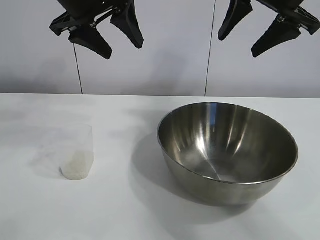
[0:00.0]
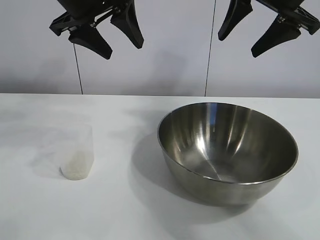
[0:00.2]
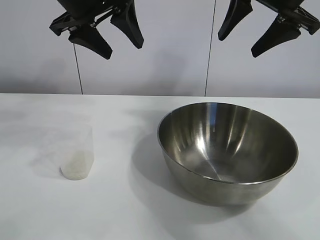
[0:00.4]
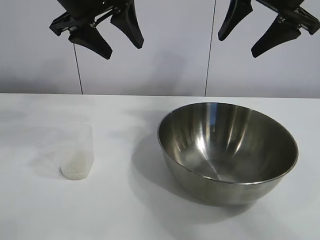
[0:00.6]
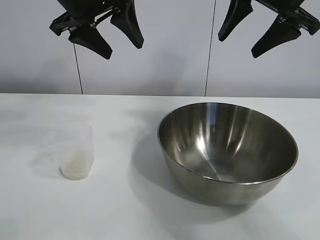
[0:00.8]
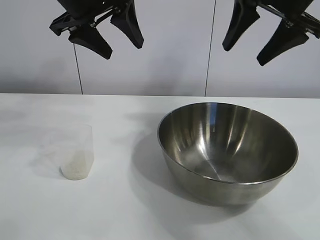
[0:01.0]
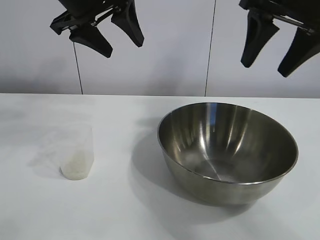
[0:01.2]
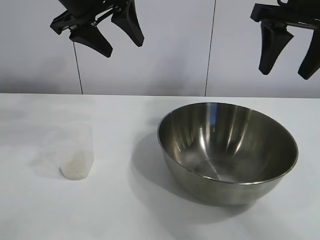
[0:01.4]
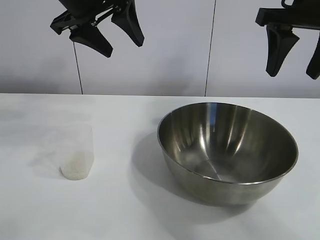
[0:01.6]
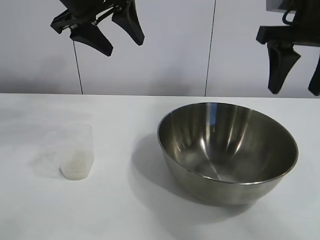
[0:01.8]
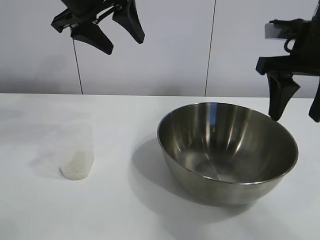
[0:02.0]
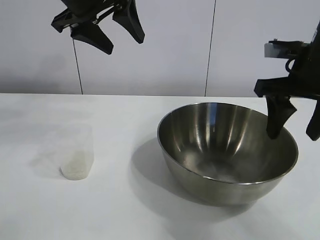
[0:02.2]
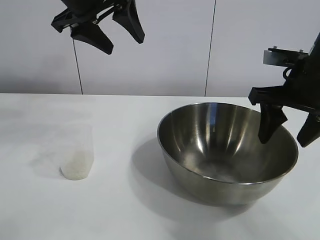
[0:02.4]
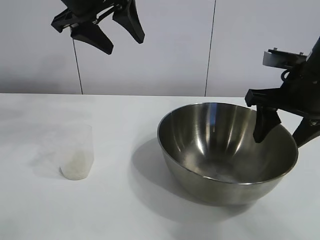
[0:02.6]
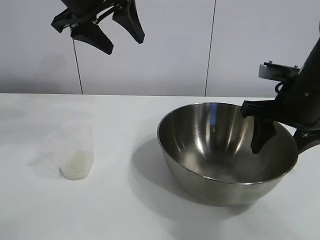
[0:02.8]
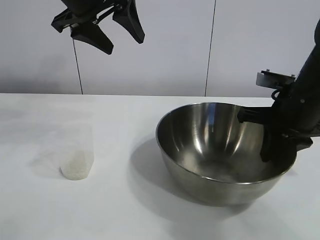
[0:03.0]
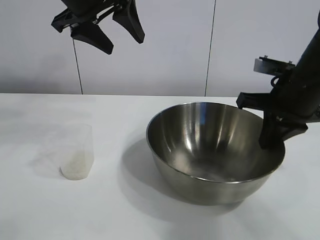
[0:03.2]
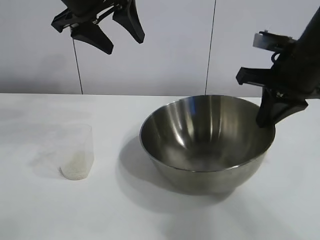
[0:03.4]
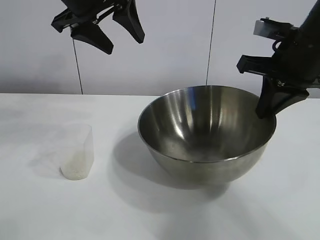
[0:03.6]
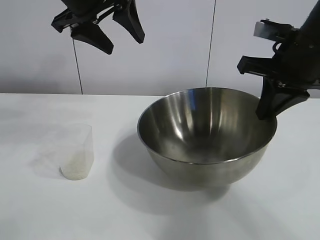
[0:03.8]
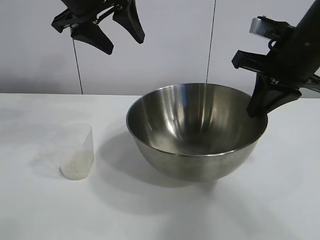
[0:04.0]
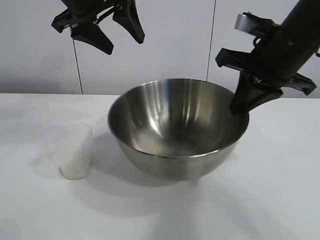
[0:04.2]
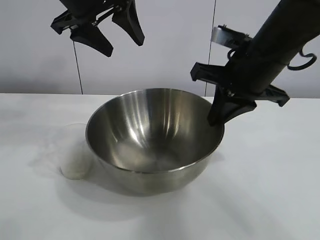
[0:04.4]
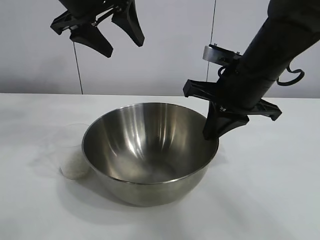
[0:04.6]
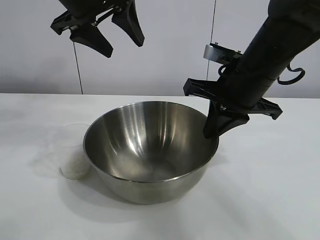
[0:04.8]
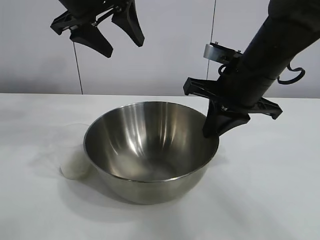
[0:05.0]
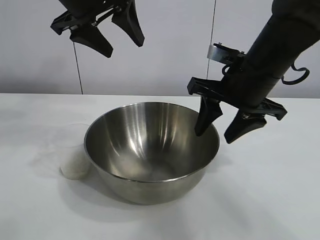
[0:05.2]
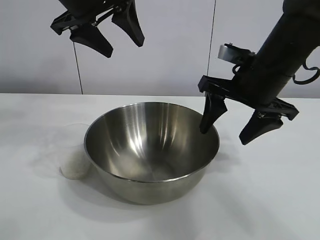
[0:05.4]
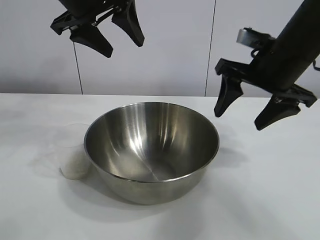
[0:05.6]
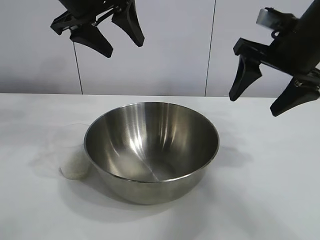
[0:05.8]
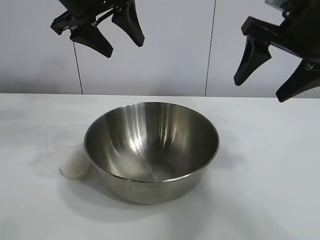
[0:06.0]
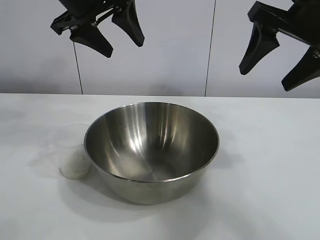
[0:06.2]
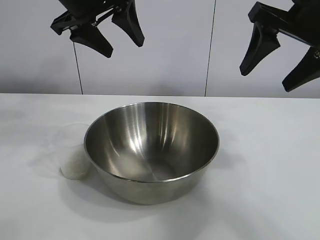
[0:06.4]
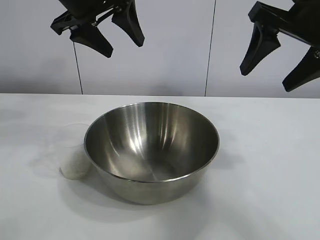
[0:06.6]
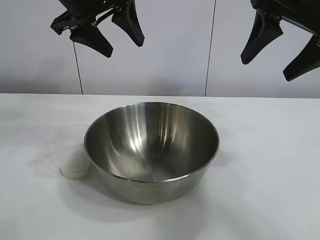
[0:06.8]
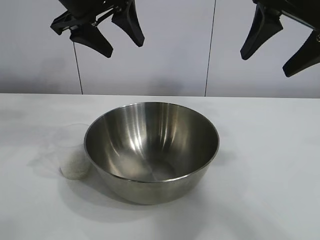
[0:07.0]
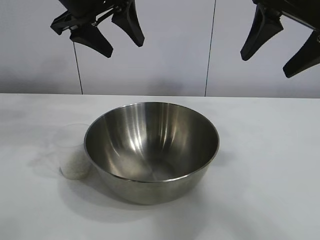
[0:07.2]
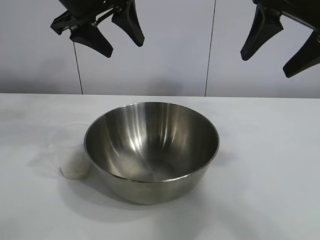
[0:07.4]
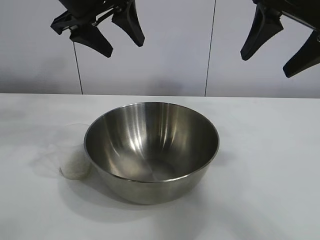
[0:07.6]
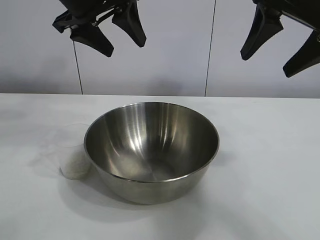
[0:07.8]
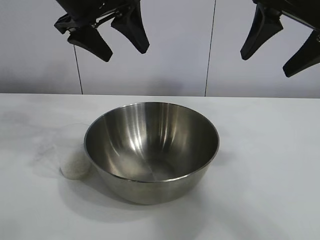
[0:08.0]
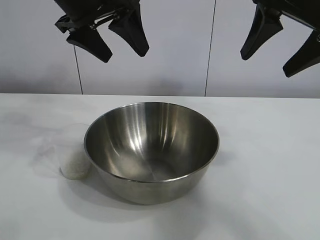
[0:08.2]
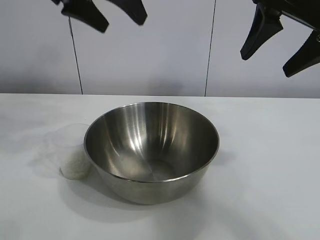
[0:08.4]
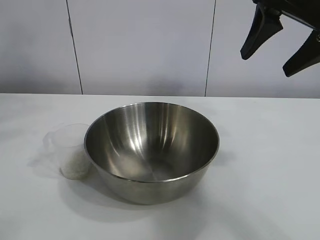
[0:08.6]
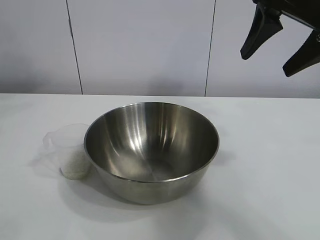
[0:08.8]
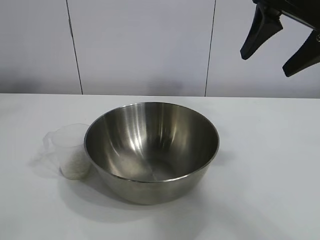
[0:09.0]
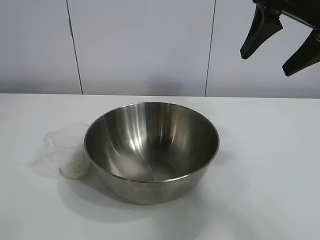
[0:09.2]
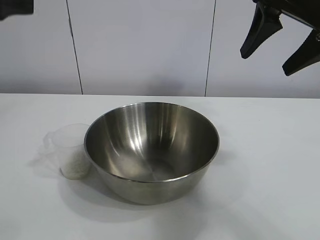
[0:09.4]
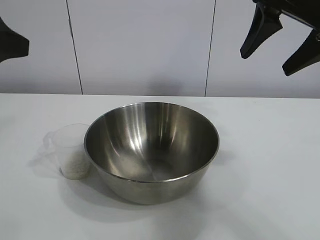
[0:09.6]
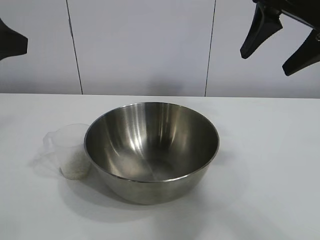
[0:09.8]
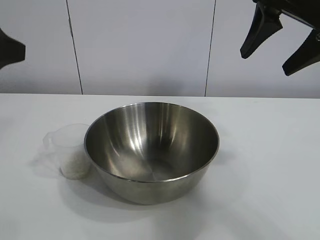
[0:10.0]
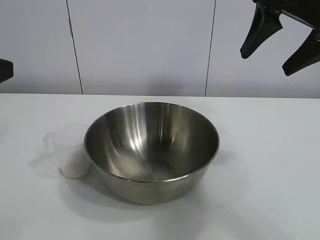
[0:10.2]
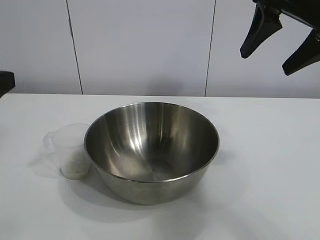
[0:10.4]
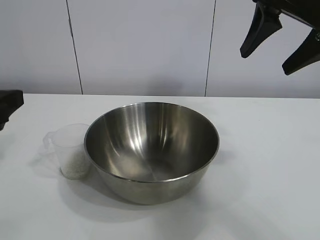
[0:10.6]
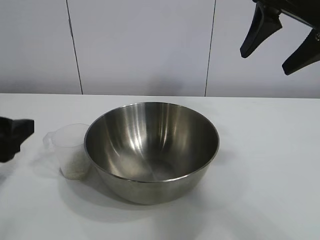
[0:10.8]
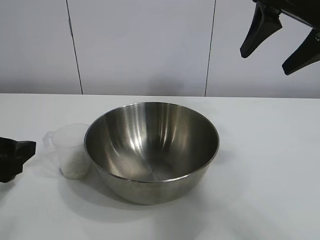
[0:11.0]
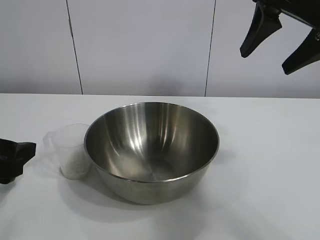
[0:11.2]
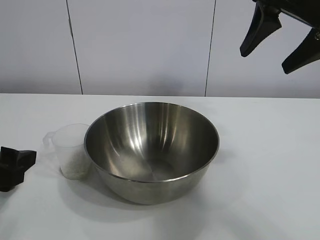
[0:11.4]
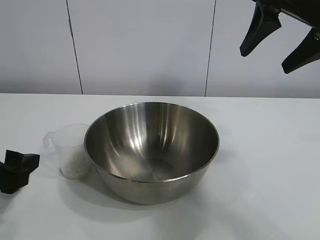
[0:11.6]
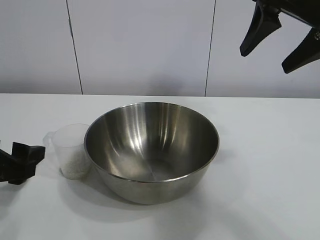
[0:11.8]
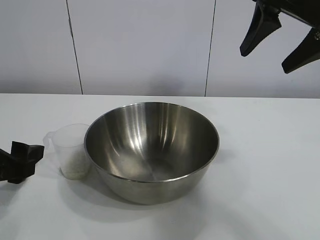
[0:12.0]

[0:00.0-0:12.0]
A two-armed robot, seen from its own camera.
Task of the whole recording: the right gripper grasp the rice container and place it in the center of the table, the left gripper grasp the rice scoop and pour the rice into the rice container.
Step, 0:01.0 to 0:05.0: Move the bowl in the center of view with right gripper.

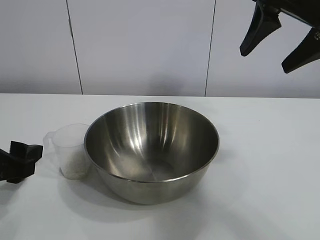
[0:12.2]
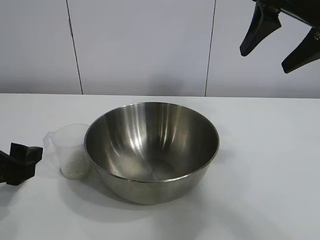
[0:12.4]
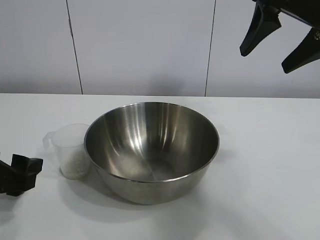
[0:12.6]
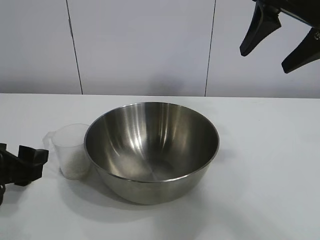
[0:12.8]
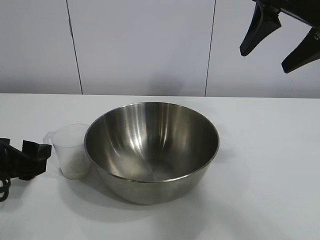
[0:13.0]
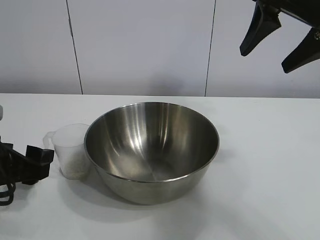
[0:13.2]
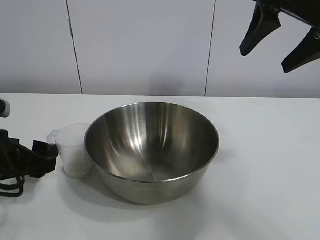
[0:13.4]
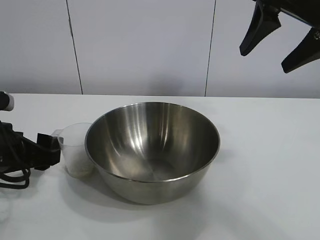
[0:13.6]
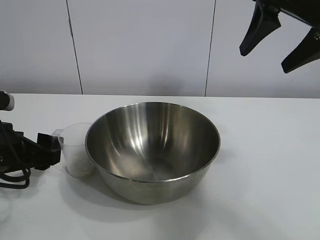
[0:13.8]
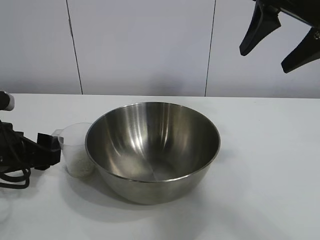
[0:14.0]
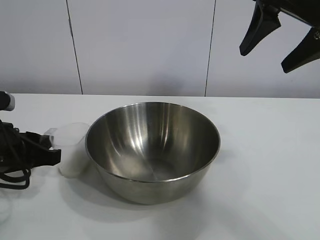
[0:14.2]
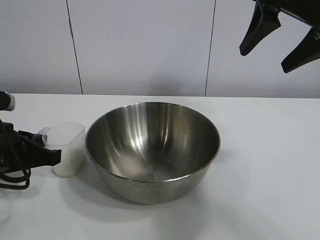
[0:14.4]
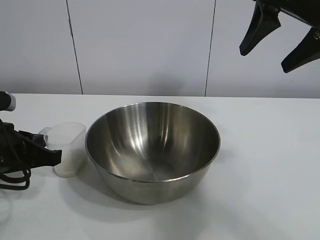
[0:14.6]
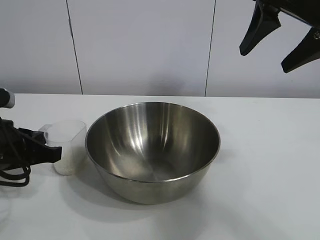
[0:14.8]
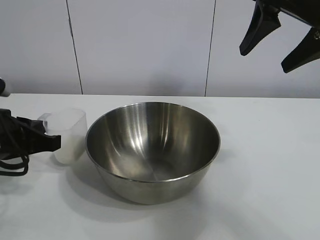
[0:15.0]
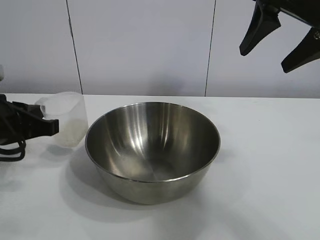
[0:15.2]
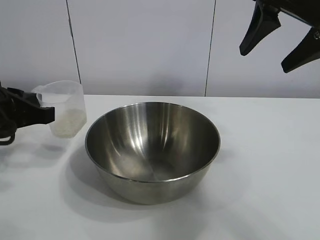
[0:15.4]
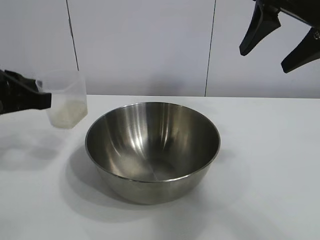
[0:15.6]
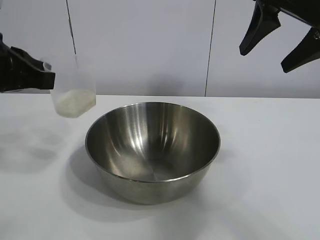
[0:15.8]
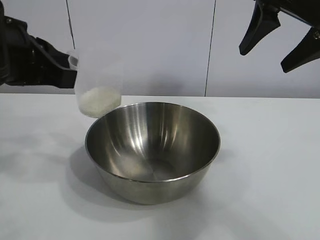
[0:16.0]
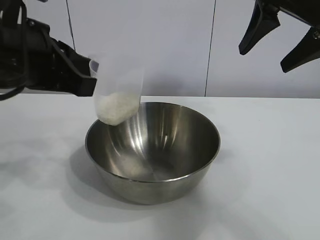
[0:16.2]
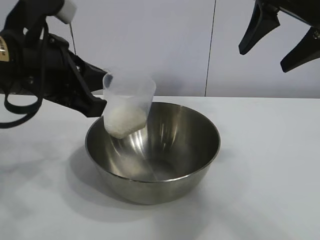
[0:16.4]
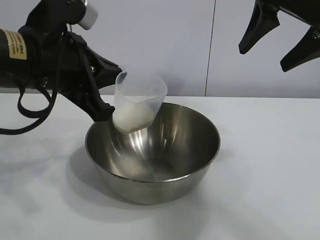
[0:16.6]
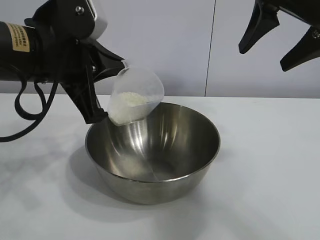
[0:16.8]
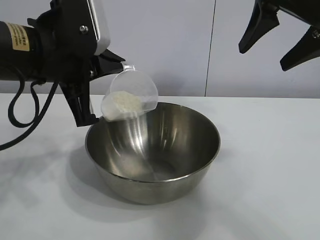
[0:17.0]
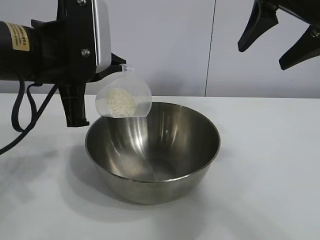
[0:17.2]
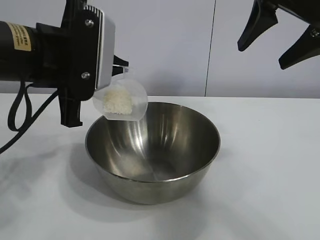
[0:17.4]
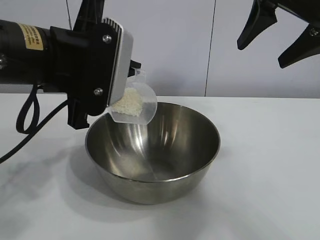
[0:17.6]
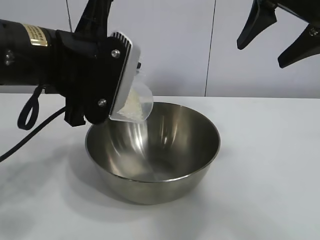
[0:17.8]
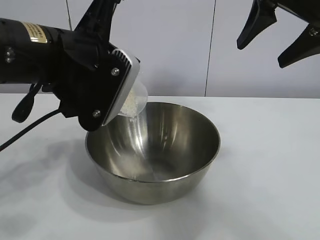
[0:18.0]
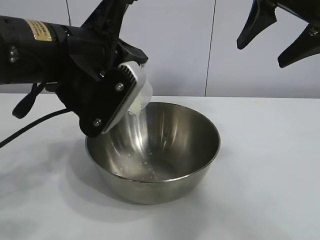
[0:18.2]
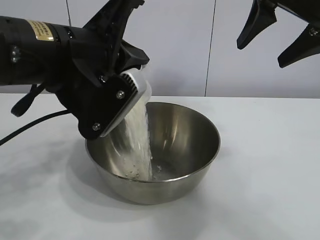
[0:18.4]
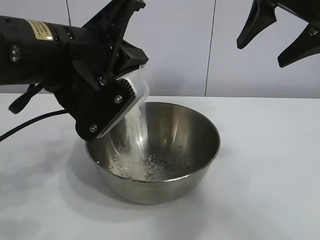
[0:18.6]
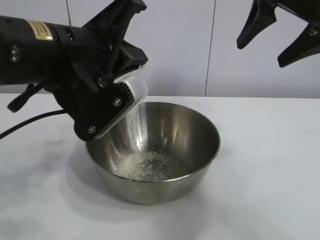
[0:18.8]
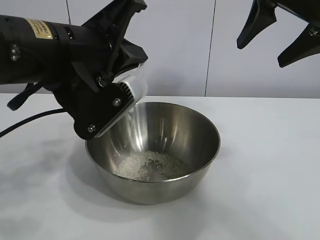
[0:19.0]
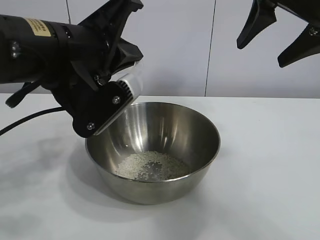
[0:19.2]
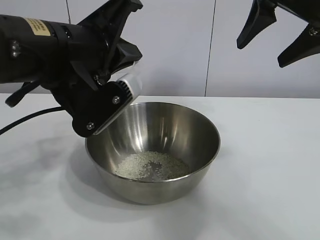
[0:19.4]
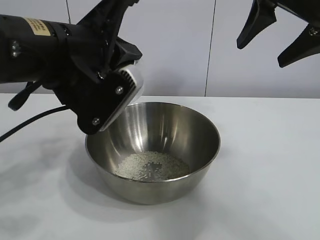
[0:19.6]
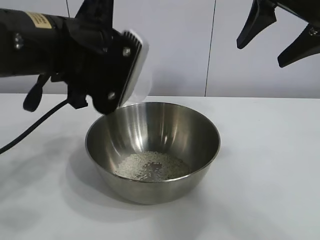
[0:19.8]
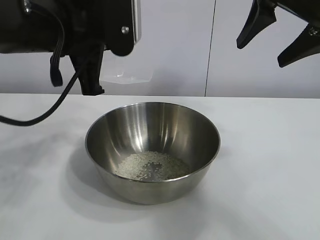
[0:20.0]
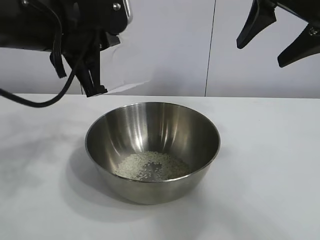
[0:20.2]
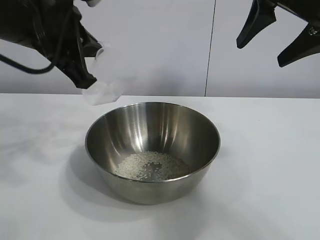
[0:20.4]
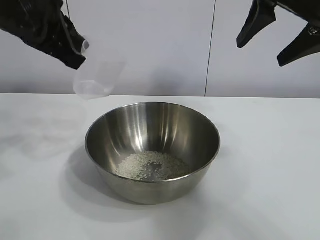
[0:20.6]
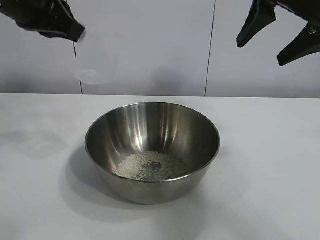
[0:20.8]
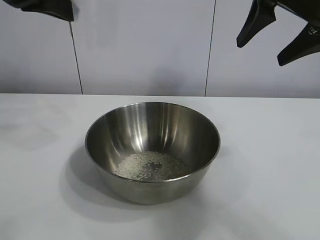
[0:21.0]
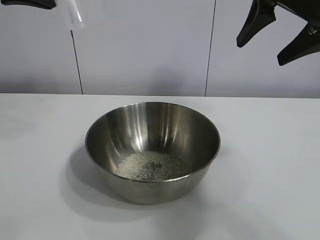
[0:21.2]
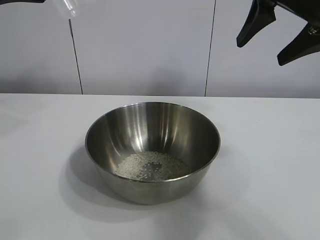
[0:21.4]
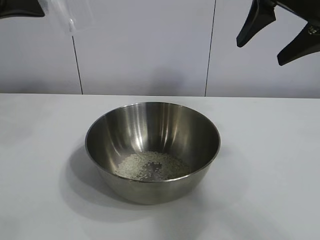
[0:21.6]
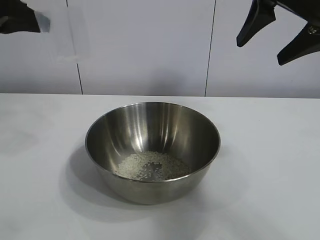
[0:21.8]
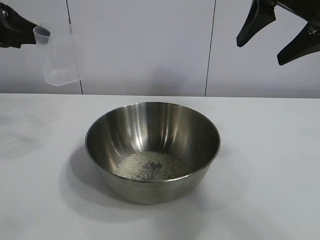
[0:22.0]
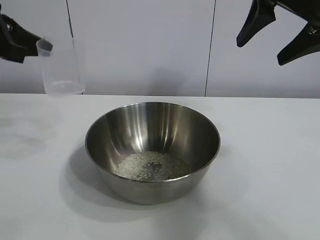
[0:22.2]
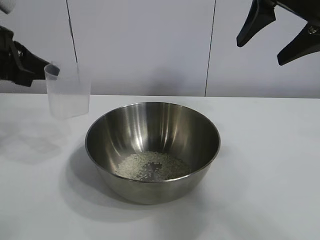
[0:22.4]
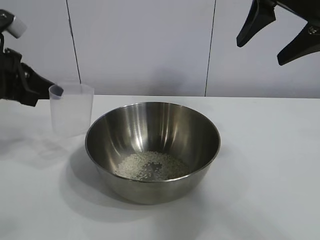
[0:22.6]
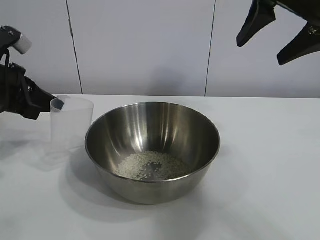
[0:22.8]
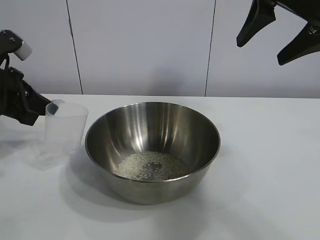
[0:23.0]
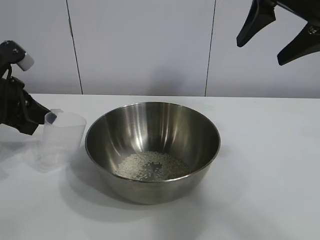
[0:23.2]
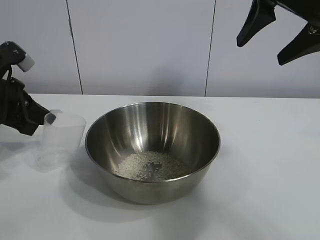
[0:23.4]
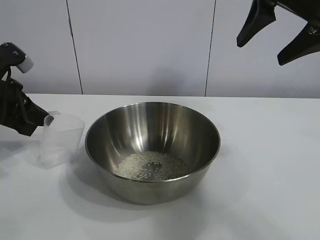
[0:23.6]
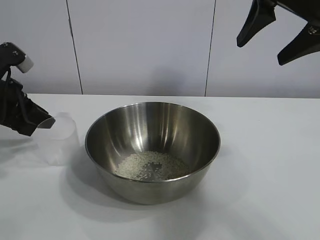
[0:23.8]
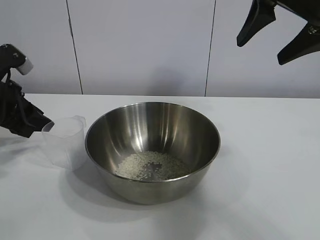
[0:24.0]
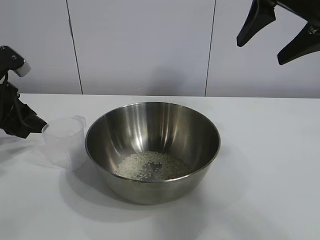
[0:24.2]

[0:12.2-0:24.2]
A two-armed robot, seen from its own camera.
Task of the whole recording: the right gripper grasp the rice container and place it in the center of the table, the left gripper grasp the rice scoop and pour the rice into the rice container.
Step, 0:12.2 to 0:14.6: Grasp the cup with rice in it with left gripper.
Step, 0:14.8 to 0:19.4: Pour the rice from the cup into the bowl with the left gripper.
Step, 0:19.6 to 0:23.6: Place the cup on the table with the left gripper.
